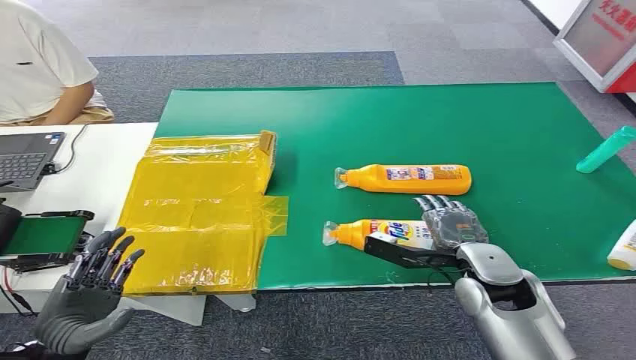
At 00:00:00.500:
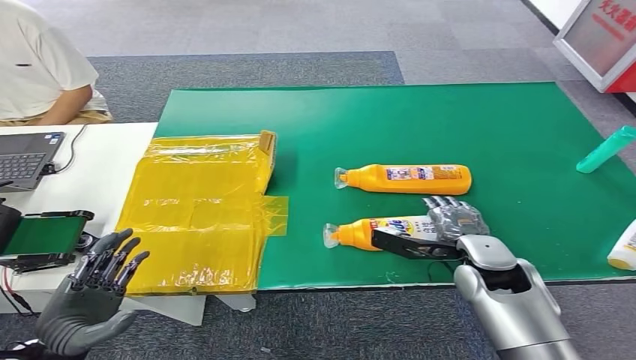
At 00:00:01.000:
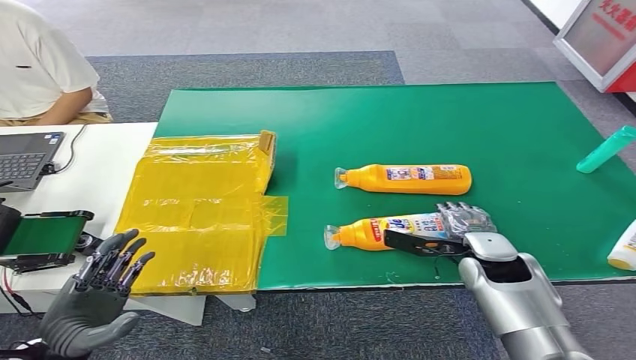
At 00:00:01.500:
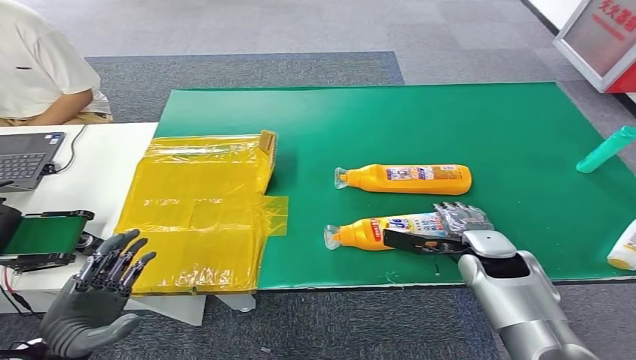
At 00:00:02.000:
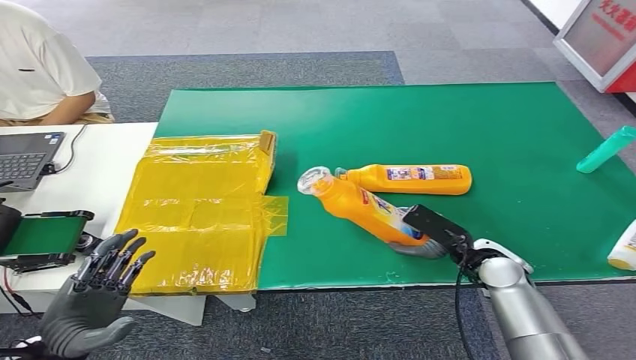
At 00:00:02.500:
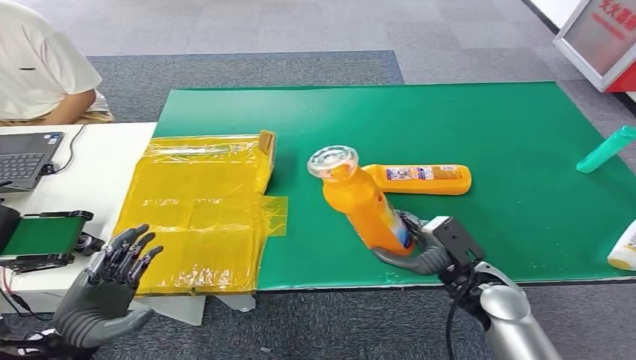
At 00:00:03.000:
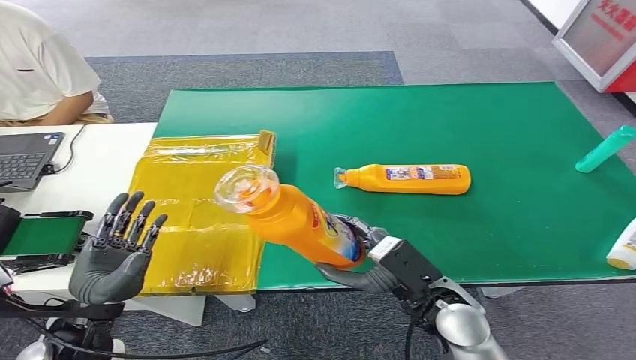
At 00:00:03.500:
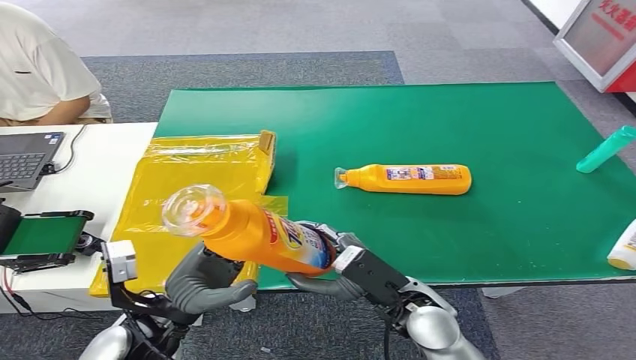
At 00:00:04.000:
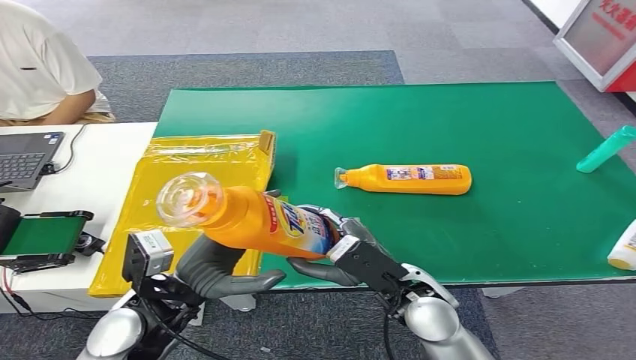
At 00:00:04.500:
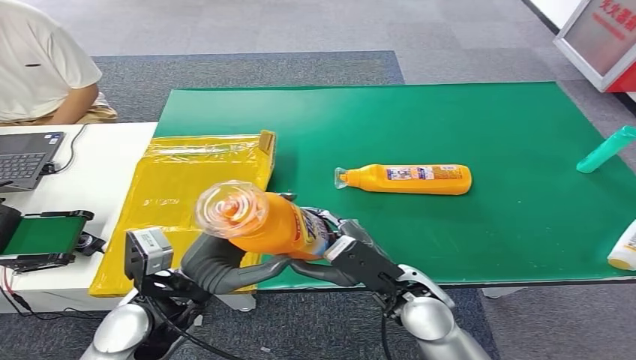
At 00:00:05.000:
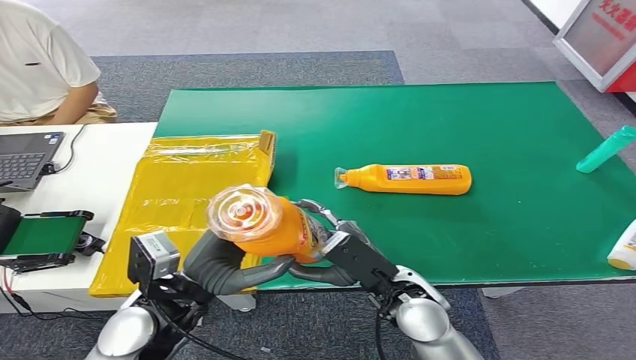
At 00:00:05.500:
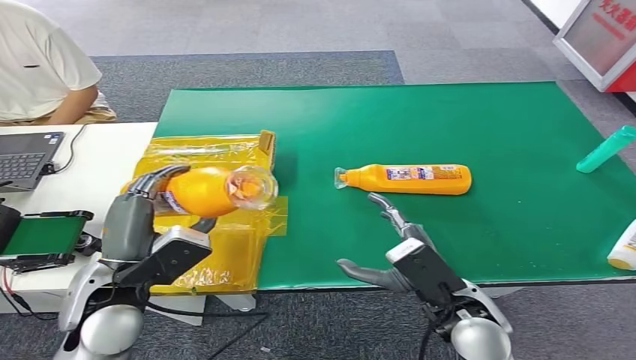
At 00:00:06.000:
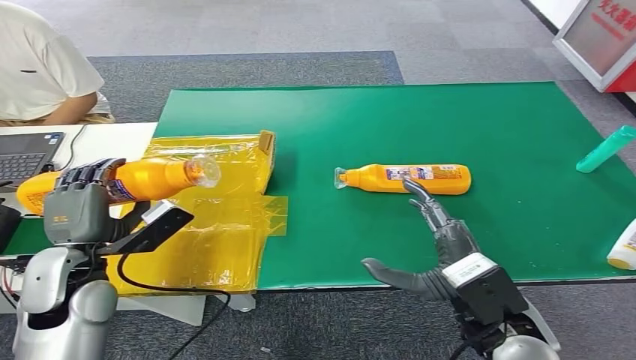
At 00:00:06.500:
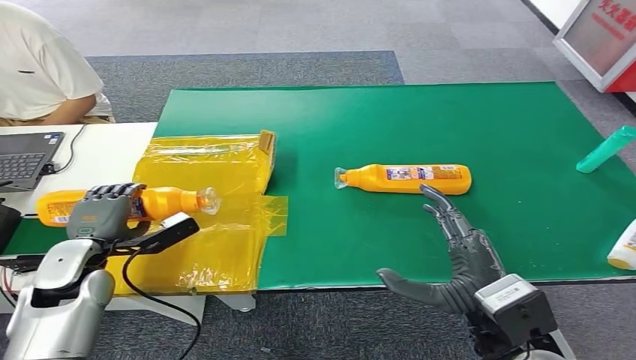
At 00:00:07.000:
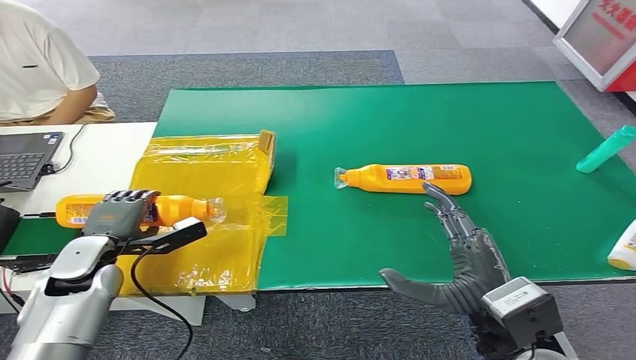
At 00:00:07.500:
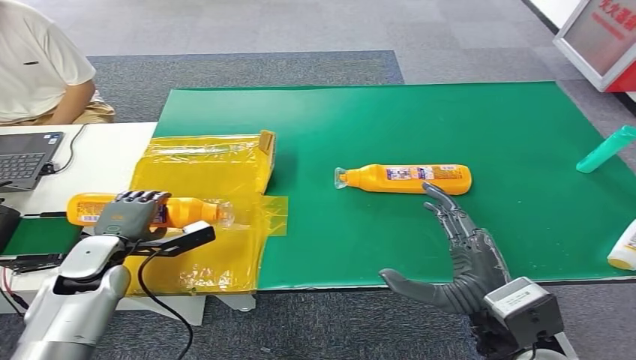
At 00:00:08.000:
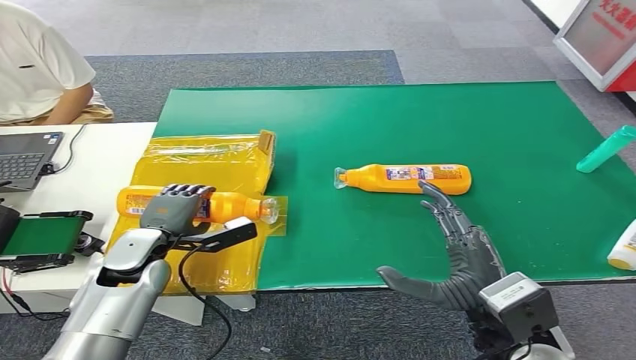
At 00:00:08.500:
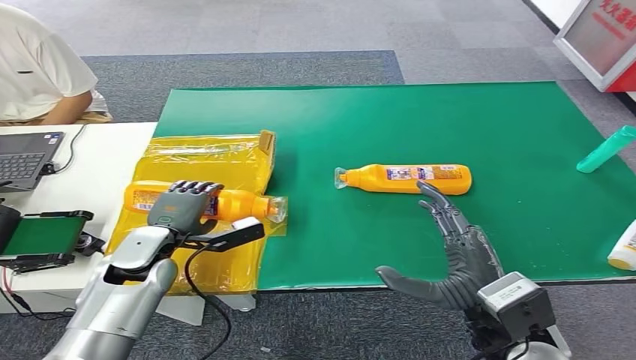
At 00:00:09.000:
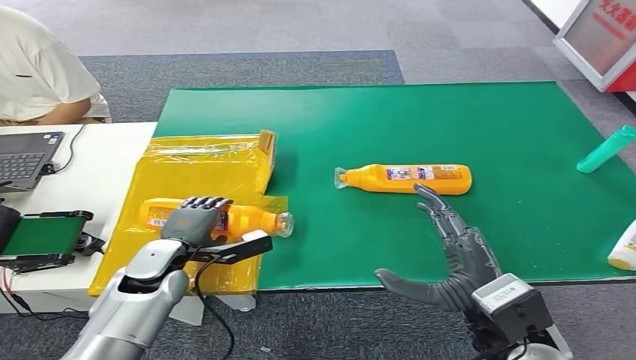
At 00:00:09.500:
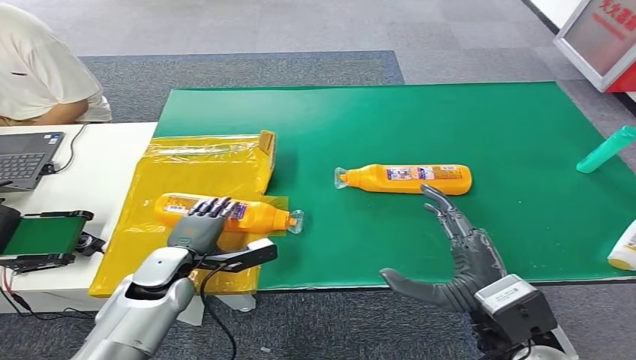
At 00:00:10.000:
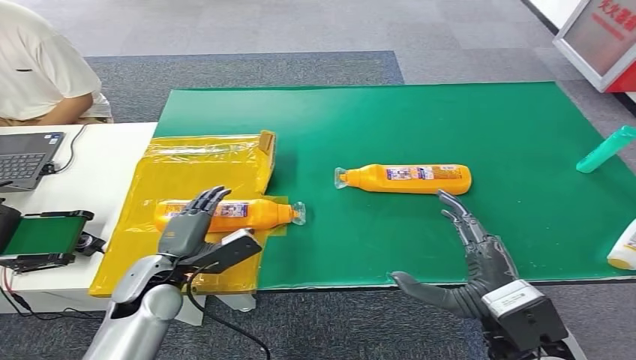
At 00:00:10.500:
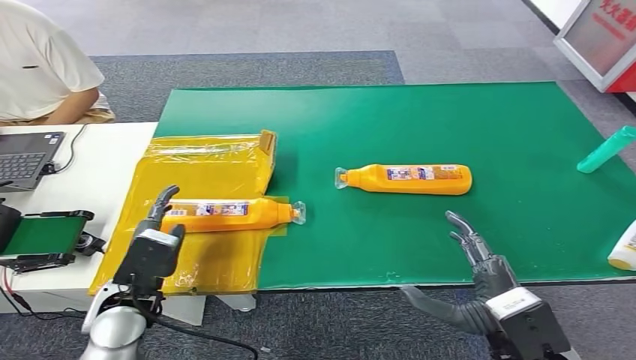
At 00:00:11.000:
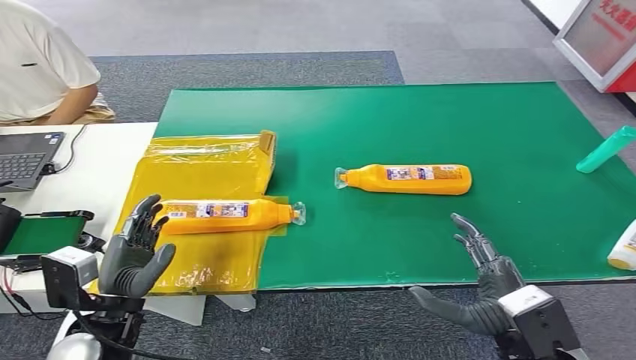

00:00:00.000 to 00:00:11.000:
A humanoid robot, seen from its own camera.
Step, 00:00:00.000 to 00:00:02.500: Pick up the bottle from the table.
Step, 00:00:04.500 to 00:00:10.500: Turn the bottle to the front side.
00:00:02.000 to 00:00:03.500: The left hand goes roughly 15 cm to the right and forward; the right hand moves to the left and backward, some 15 cm.
00:00:03.500 to 00:00:05.500: The right hand is displaced to the right by about 5 cm; the left hand travels upward by some 5 cm.
00:00:05.500 to 00:00:07.500: The right hand changes place by some 5 cm. Meanwhile the left hand goes some 15 cm downward, to the left and forward.
00:00:07.500 to 00:00:09.000: The left hand travels to the right by about 10 cm.
00:00:09.000 to 00:00:11.000: The left hand shifts about 15 cm backward and upward; the right hand ends up approximately 5 cm from where it was.
